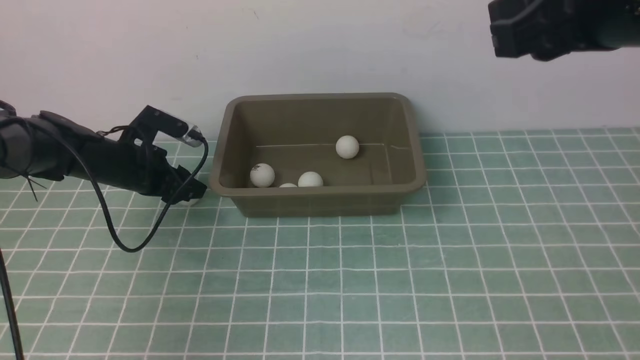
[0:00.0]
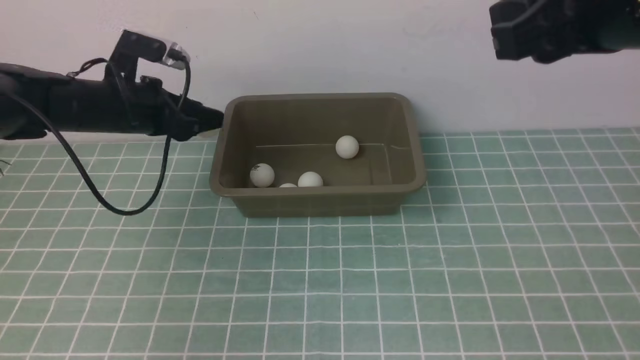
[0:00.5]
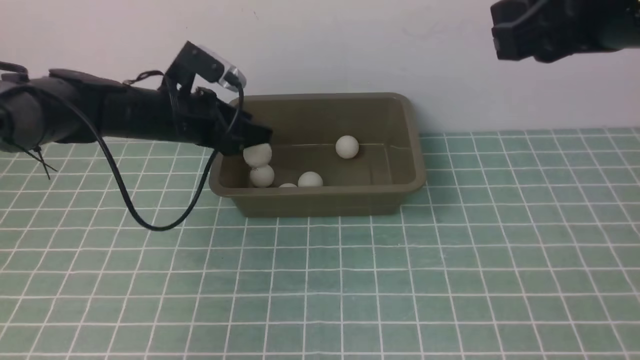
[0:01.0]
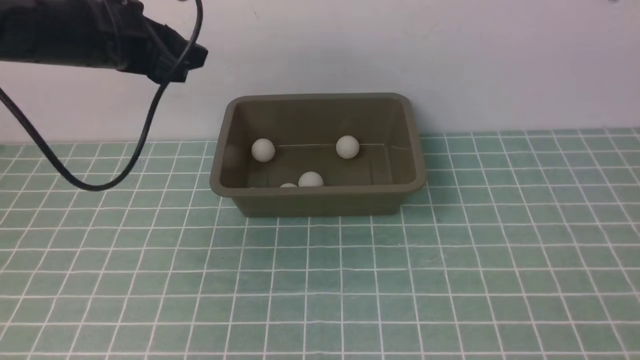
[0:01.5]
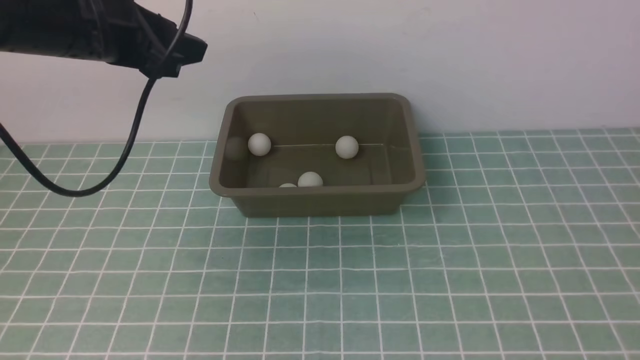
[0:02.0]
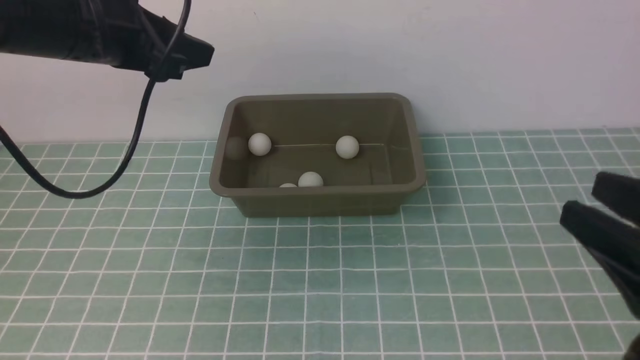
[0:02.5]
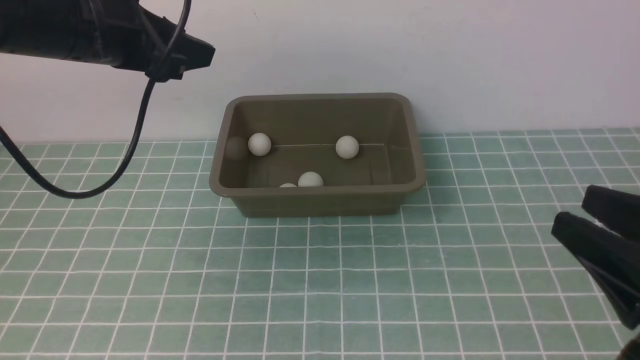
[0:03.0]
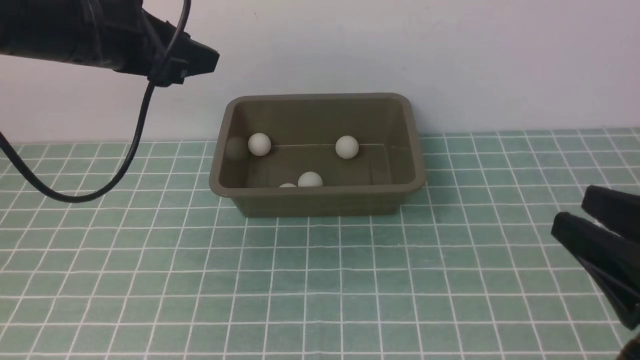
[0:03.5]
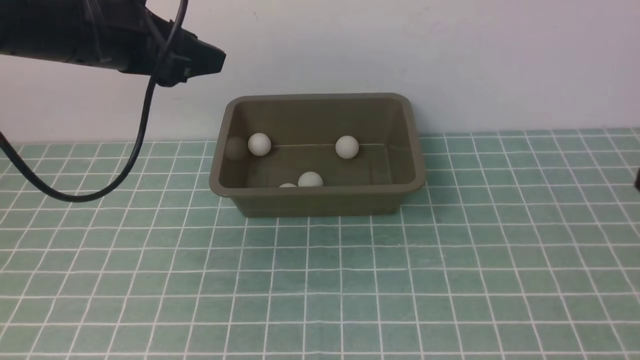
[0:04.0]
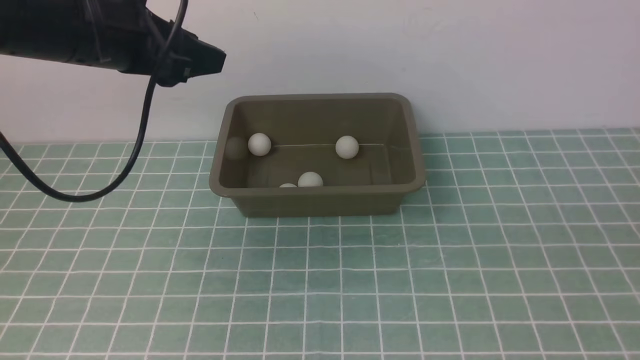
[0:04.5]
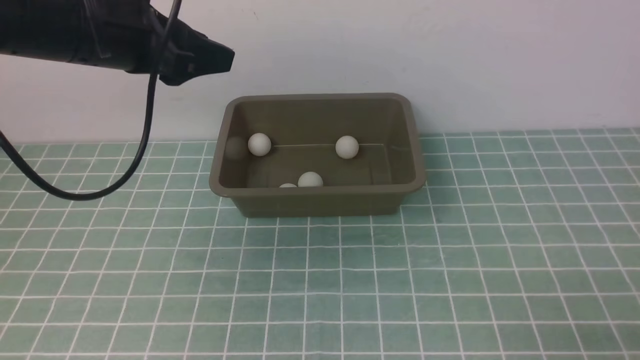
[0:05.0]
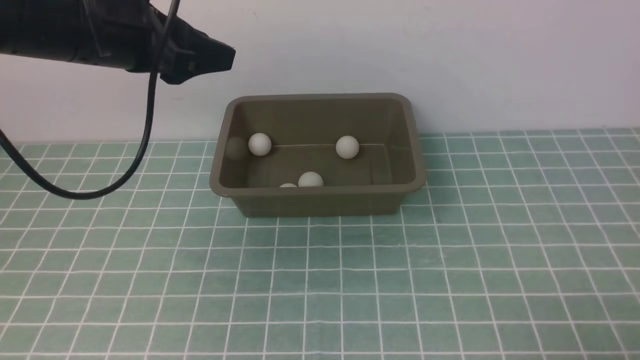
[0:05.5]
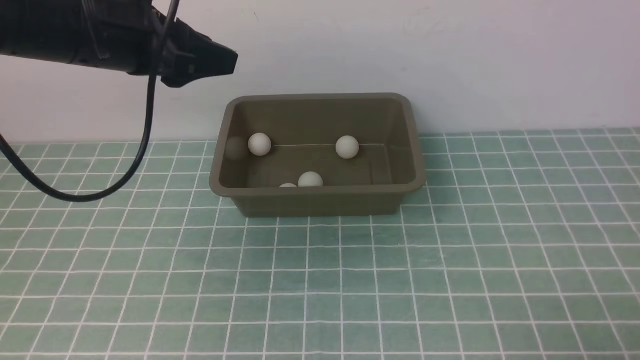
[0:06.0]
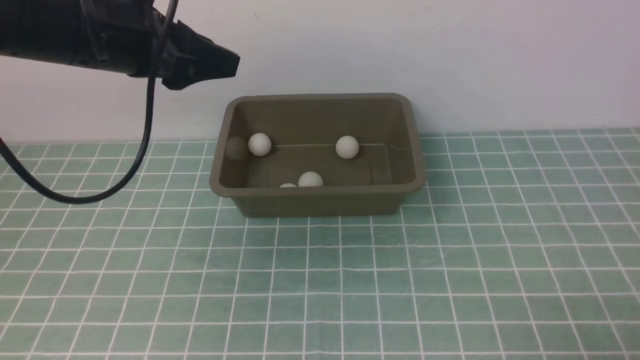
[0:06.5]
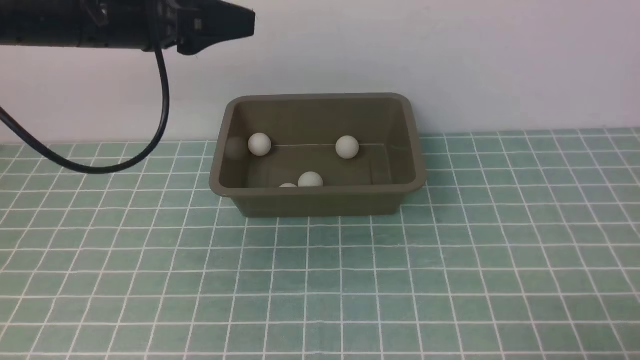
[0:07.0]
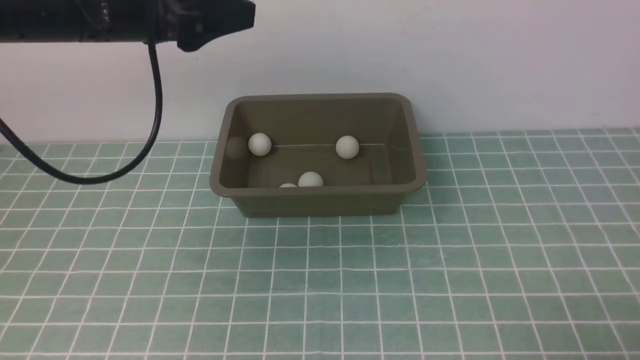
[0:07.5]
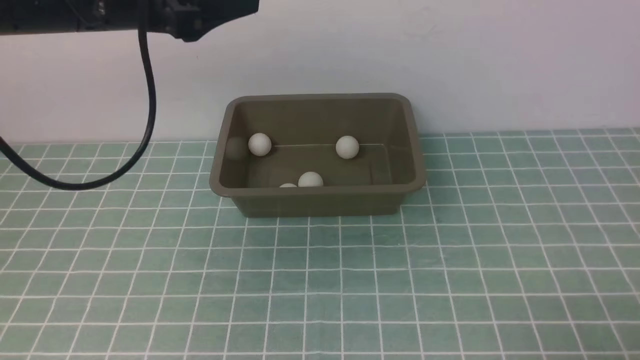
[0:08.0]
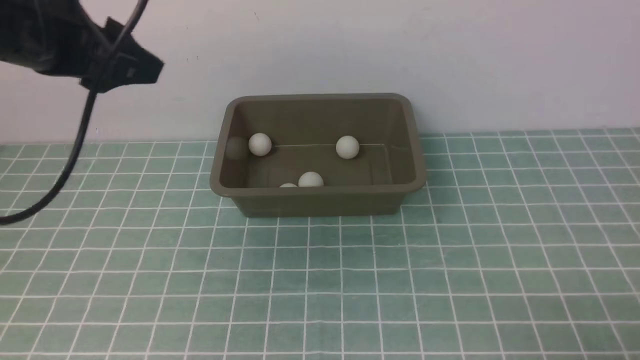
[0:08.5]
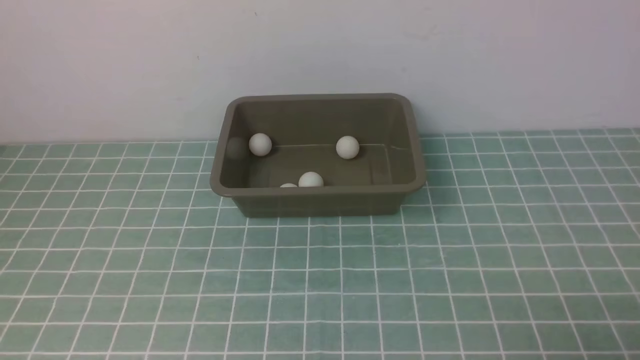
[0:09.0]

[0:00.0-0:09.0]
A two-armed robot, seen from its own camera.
0:00.0 to 0:02.0: The right gripper goes approximately 15 cm backward and to the right. The left gripper moves upward, some 20 cm.
0:04.5 to 0:07.0: The right gripper goes about 10 cm downward.
0:07.0 to 0:09.0: The left gripper is displaced backward by some 25 cm.

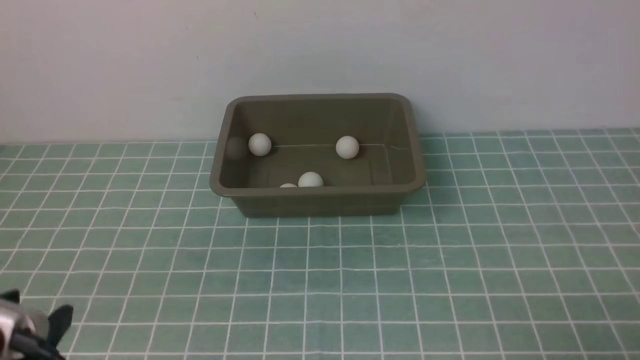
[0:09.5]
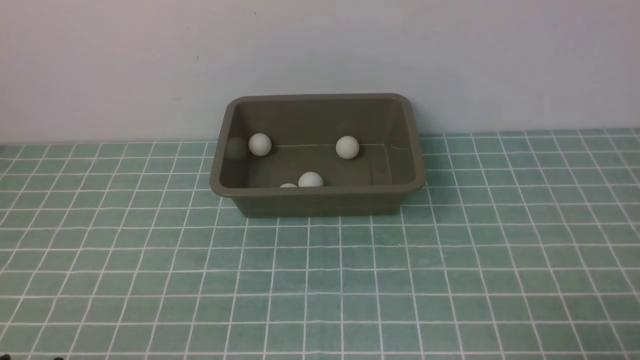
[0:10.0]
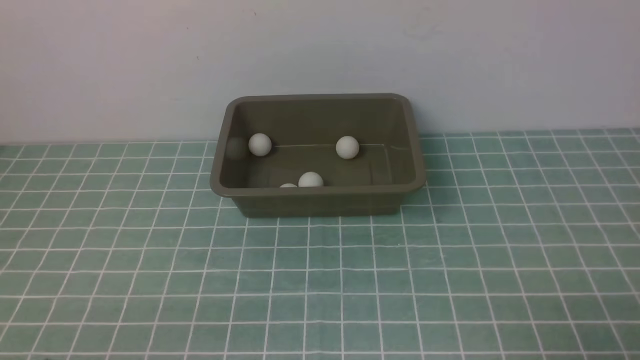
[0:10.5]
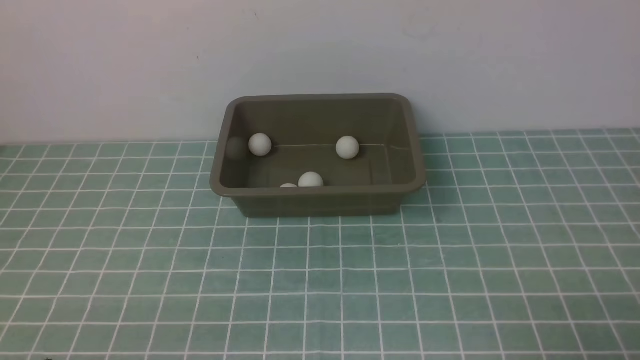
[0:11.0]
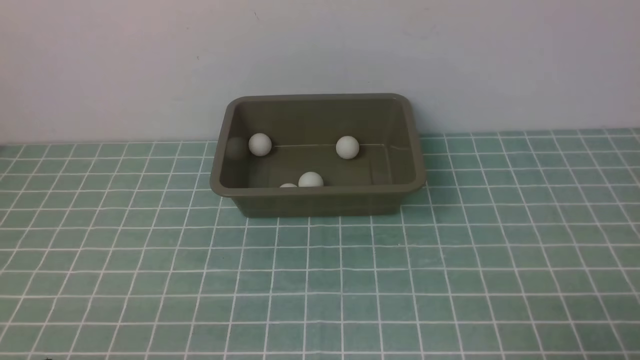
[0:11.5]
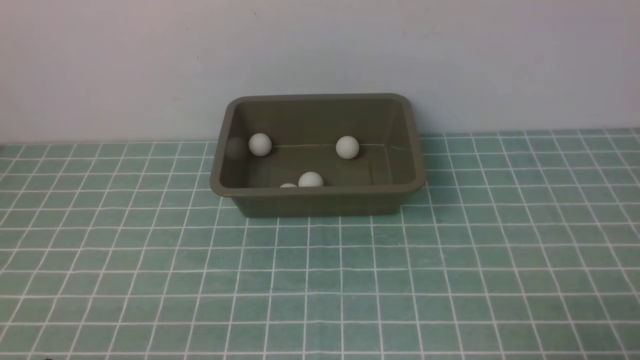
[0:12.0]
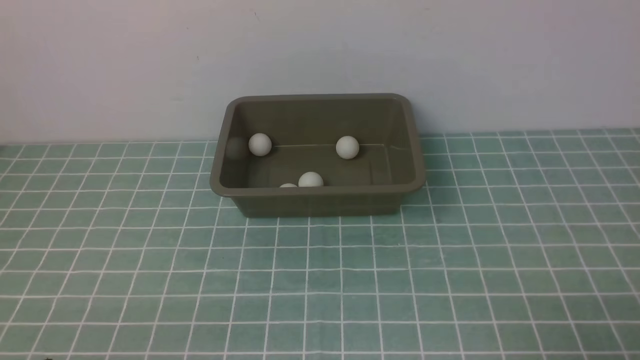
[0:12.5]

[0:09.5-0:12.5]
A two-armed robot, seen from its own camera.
0:09.5 to 0:11.0: The left gripper heads downward, covering approximately 5 cm.
0:11.0 to 0:12.5: Neither gripper changes place.
